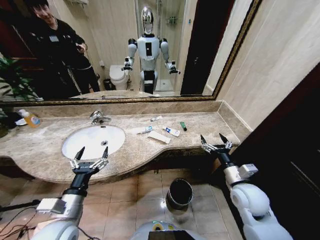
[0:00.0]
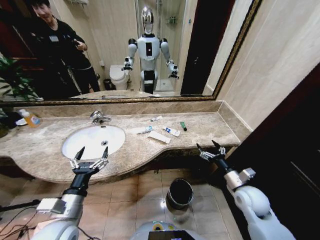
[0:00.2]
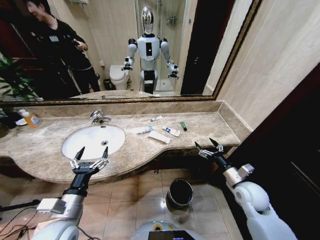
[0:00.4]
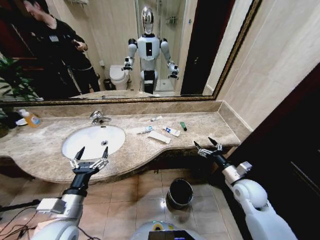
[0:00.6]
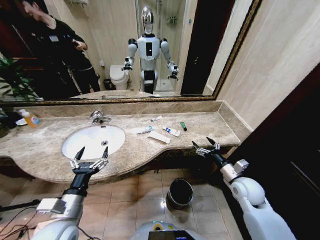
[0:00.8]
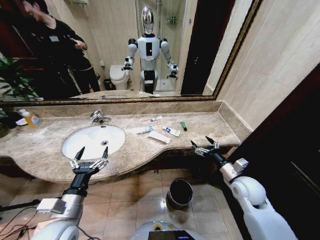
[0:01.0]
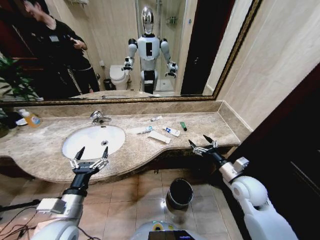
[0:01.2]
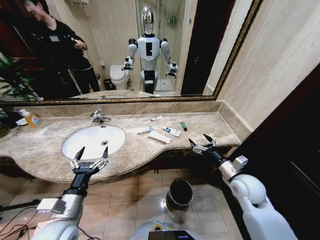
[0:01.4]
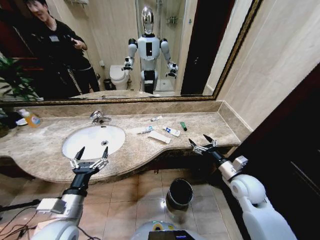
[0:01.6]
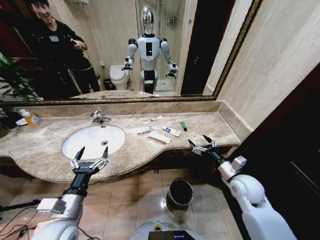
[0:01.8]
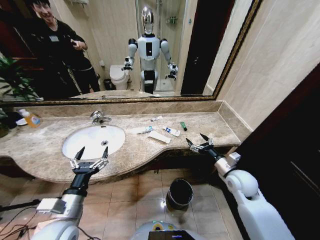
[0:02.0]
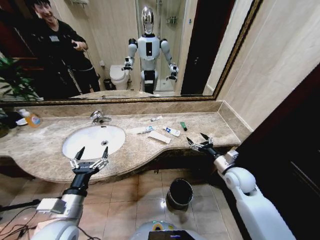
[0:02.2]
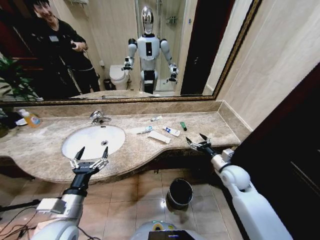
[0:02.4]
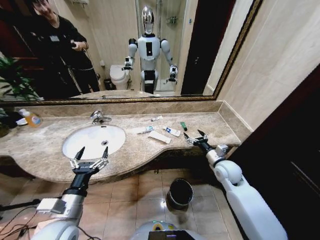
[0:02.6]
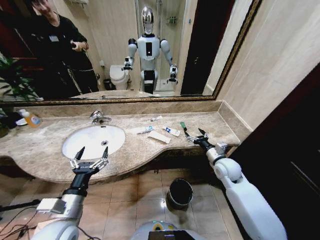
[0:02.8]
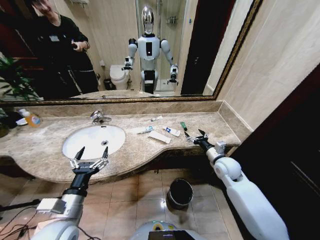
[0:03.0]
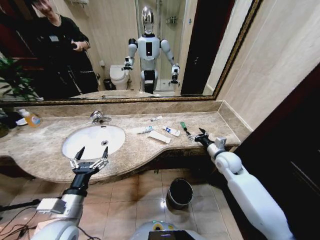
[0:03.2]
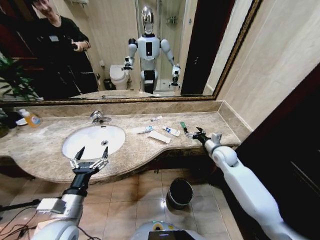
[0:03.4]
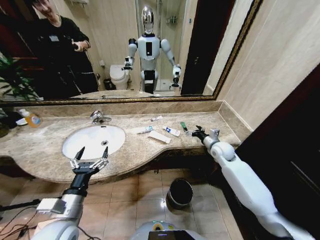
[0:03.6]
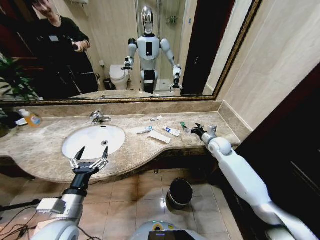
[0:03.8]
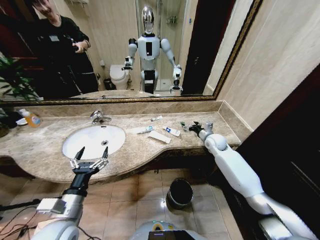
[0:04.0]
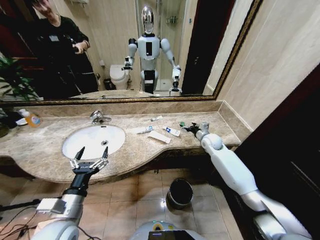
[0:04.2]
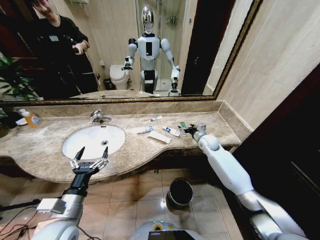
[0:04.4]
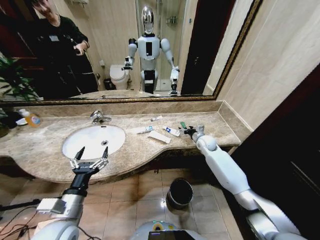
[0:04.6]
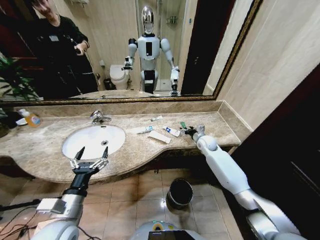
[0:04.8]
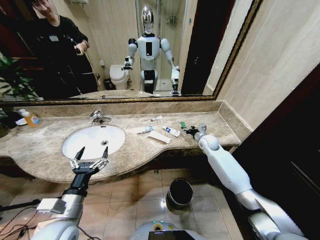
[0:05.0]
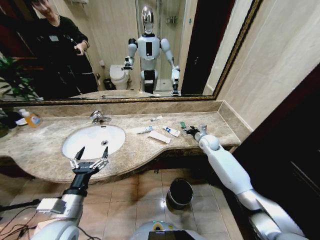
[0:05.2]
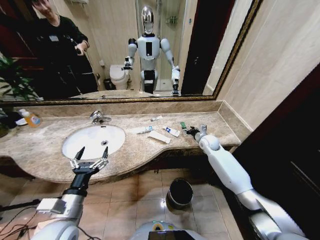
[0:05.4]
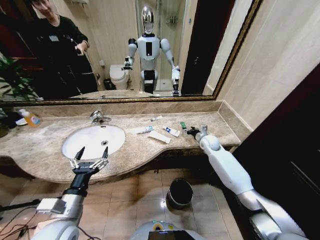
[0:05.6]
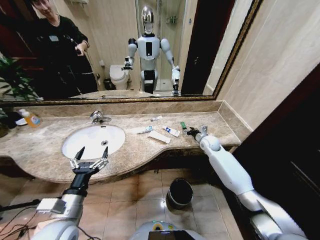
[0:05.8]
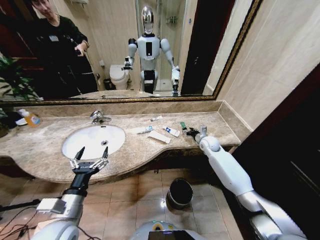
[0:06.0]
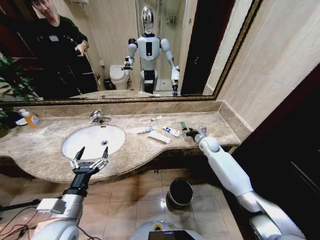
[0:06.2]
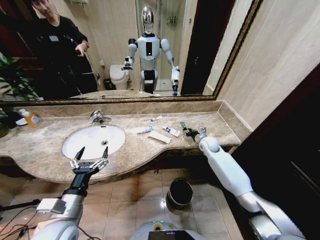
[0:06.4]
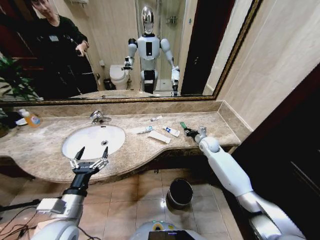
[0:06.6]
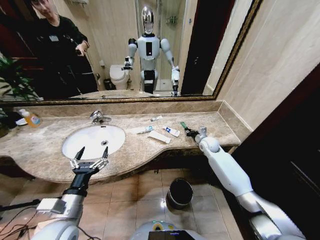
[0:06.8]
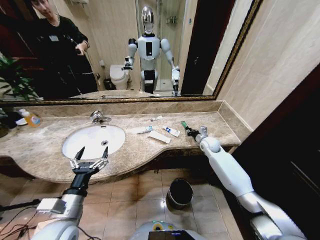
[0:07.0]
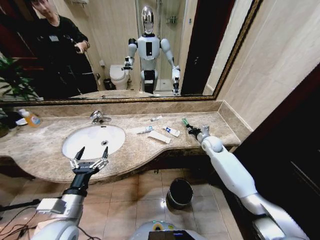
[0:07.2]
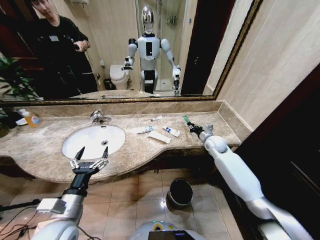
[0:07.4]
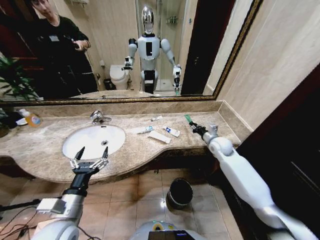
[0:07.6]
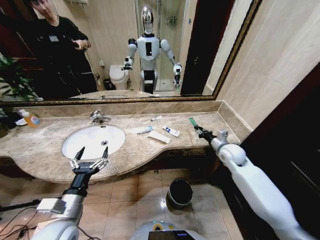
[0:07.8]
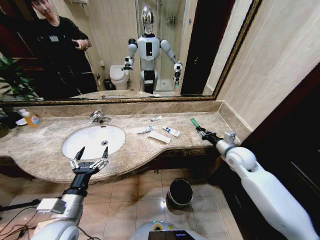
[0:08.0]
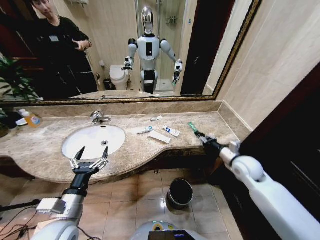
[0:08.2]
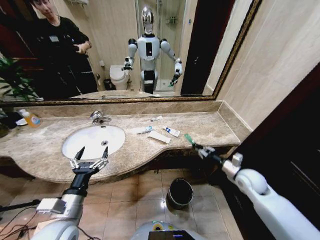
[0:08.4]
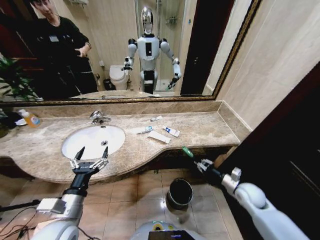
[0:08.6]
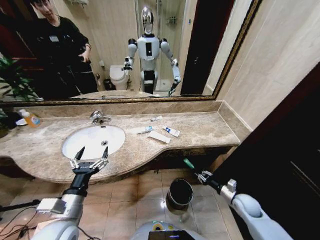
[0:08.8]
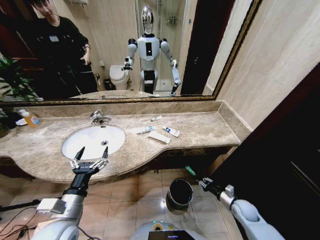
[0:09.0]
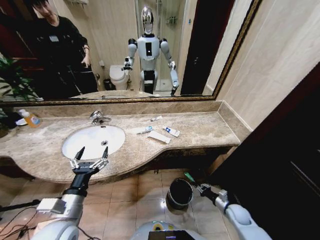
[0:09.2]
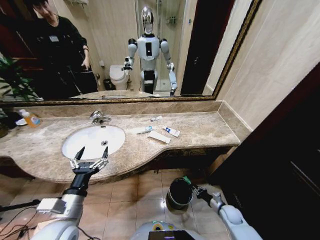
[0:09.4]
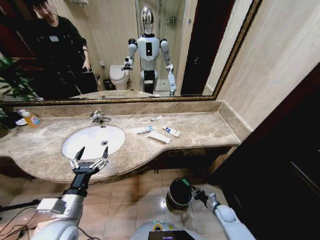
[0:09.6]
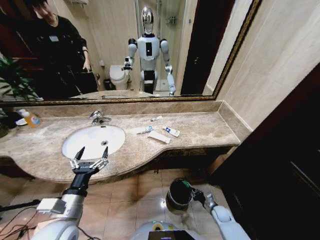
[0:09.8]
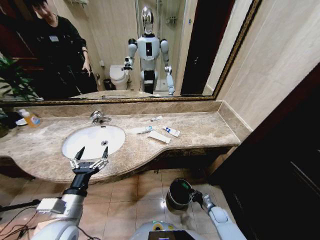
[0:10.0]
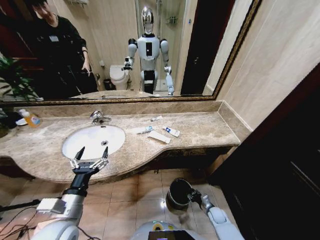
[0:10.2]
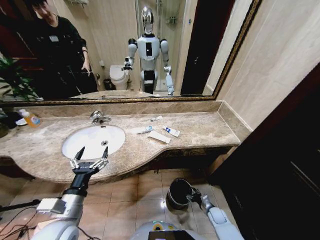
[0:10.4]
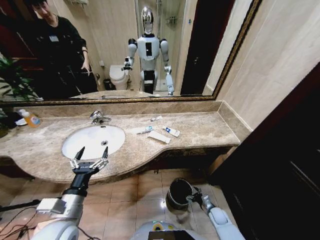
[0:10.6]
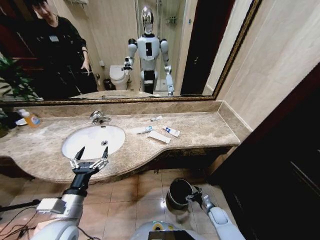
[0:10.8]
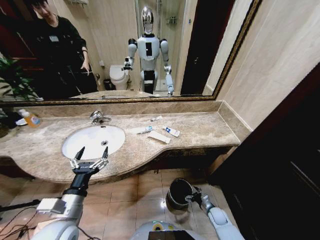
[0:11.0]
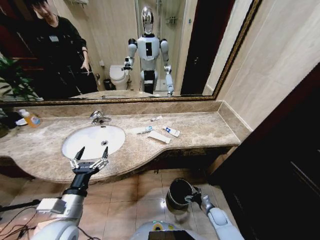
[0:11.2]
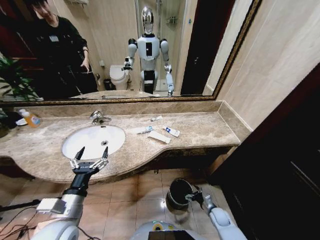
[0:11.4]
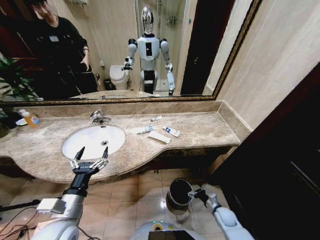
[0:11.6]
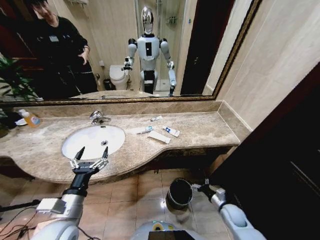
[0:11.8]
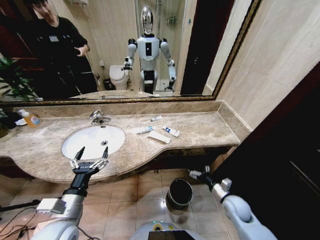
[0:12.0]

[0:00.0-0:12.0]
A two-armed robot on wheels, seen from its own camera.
Task of the whole recording: Pick up the trash from the sink and place it in the trash bin.
0:01.6 to 0:03.0: The right gripper heads forward, covering about 10 cm.
0:03.0 to 0:04.4: The right gripper shifts approximately 15 cm forward.
0:04.4 to 0:06.0: The right gripper closes up.
0:06.0 to 0:07.6: The right gripper is displaced backward by some 5 cm, and closes.
0:07.6 to 0:09.0: The right gripper is displaced downward, backward and to the right by approximately 35 cm.
0:09.0 to 0:10.4: The right gripper heads downward and to the left, covering roughly 15 cm, and opens.
0:10.4 to 0:12.0: The right gripper travels upward by some 20 cm, and opens up.

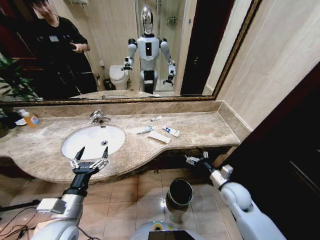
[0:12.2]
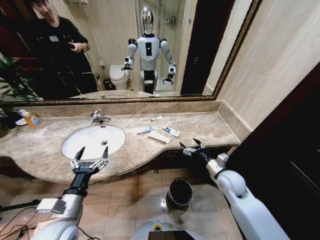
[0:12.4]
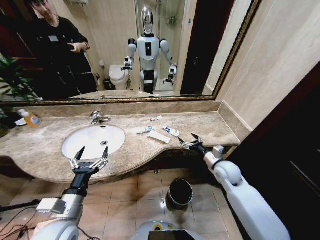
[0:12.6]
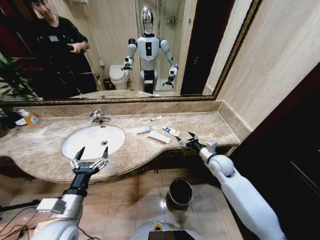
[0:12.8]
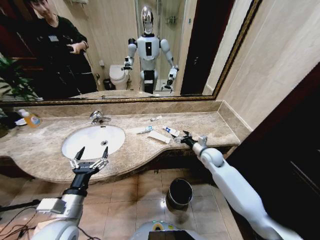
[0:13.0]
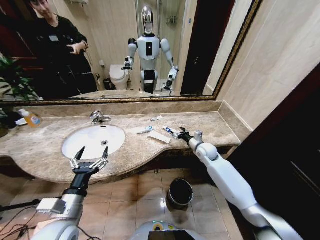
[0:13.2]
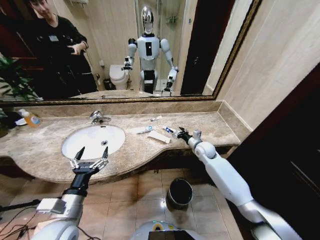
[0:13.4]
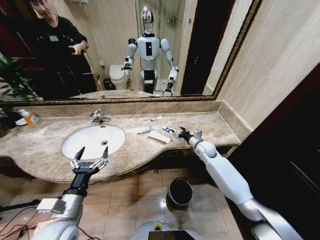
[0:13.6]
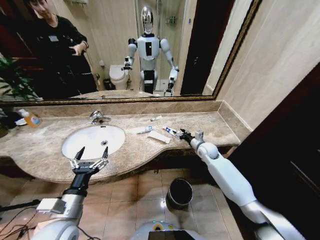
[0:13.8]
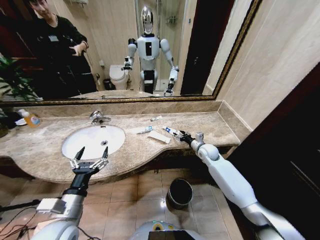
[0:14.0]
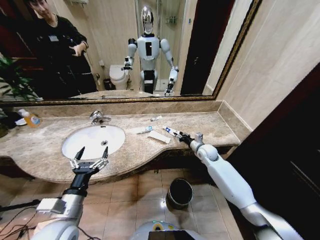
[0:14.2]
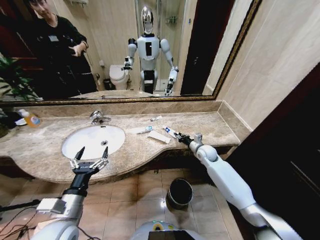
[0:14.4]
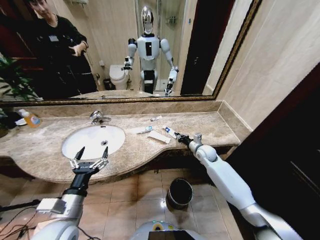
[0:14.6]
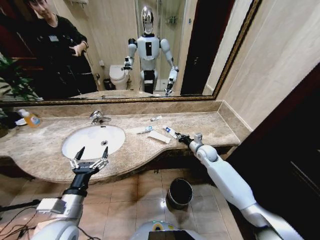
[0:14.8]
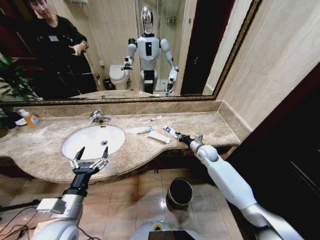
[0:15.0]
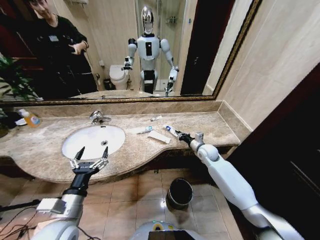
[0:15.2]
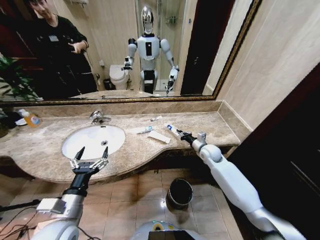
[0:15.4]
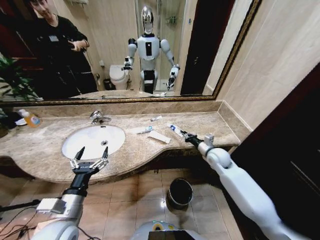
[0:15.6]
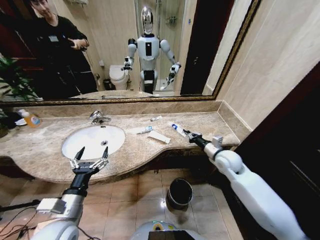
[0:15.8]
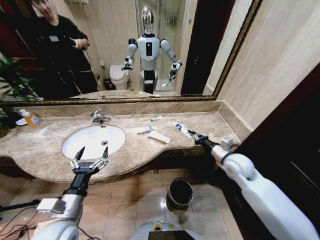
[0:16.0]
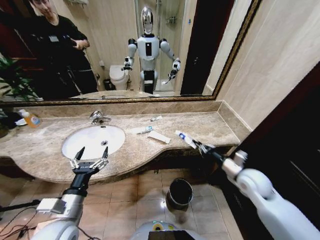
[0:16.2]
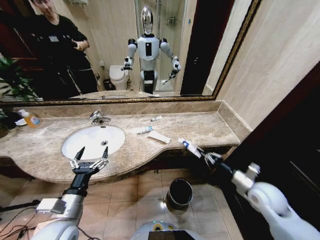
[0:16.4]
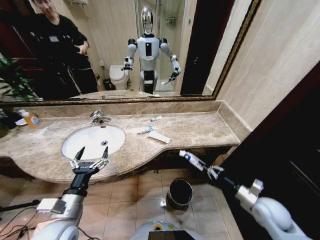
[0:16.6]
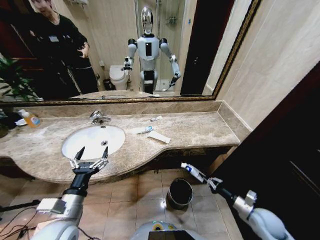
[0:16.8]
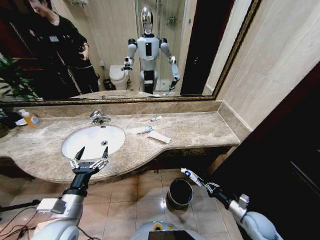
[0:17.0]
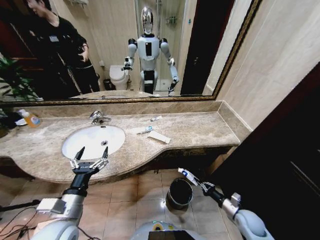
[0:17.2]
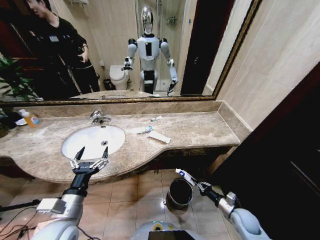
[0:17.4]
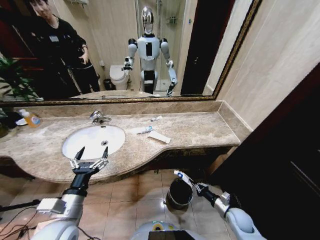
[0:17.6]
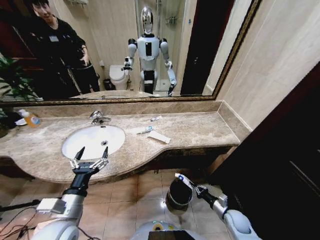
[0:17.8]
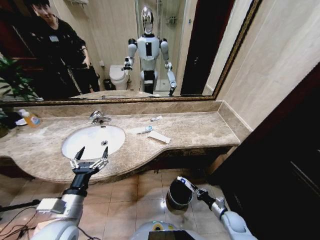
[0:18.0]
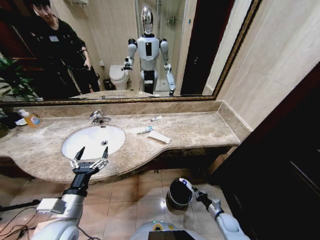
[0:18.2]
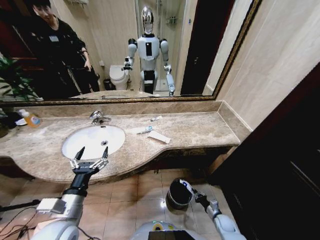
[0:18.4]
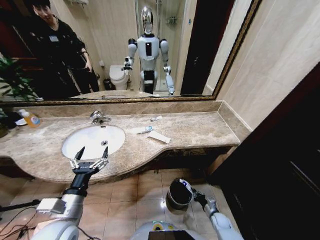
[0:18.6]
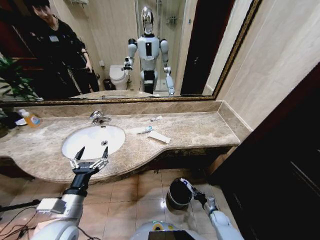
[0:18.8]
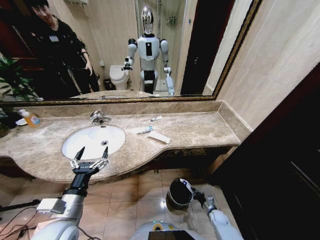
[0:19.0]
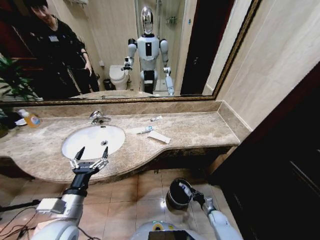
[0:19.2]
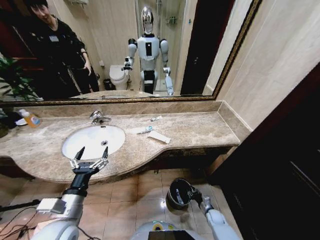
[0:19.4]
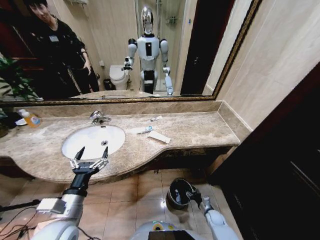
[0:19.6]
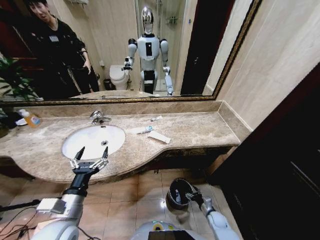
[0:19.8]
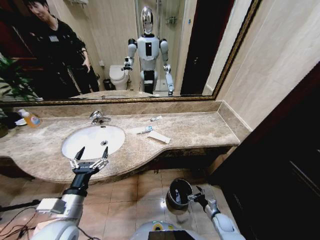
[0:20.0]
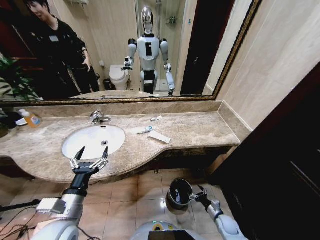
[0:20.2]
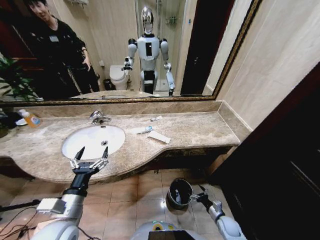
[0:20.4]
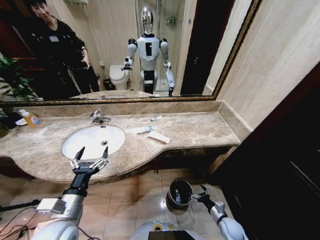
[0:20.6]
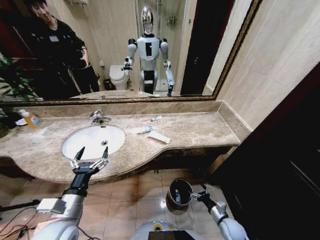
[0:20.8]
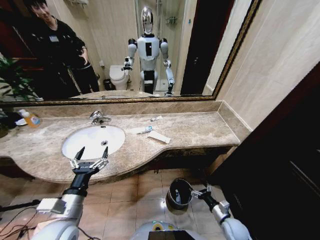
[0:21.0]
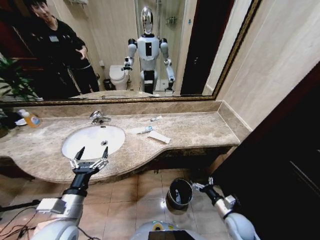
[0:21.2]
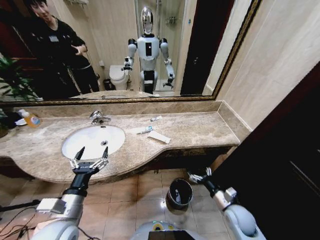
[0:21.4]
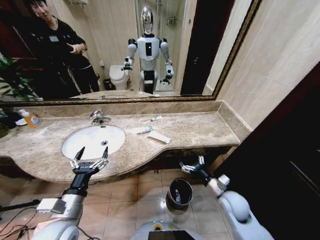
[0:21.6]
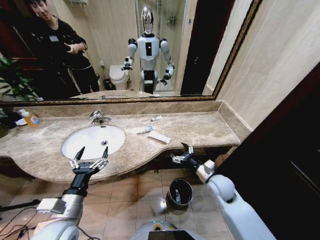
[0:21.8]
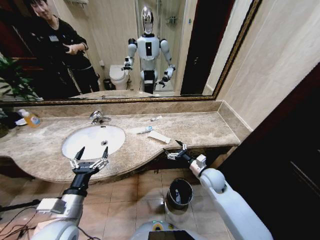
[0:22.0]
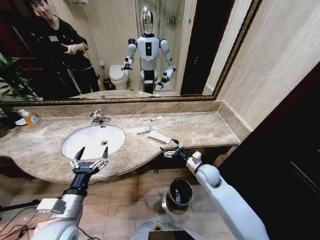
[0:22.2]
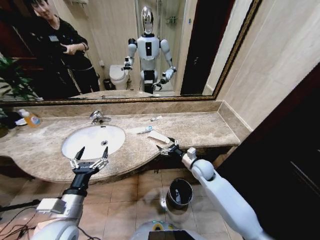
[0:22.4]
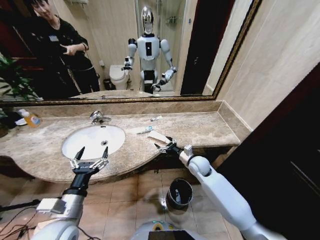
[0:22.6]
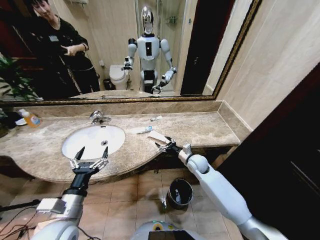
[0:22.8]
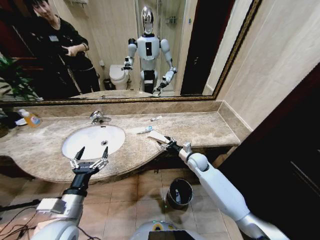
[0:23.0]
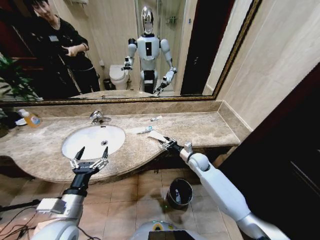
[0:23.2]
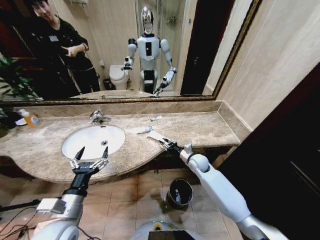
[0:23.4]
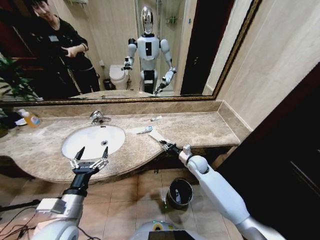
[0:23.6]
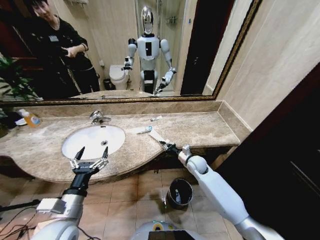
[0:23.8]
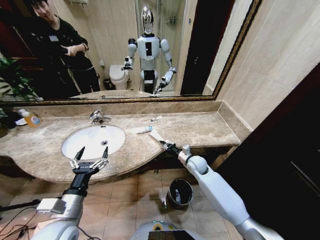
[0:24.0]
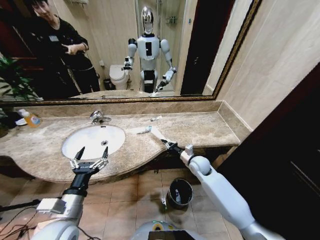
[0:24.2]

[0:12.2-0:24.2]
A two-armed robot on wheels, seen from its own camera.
Task of the whole recording: Pick up the trash from the sink and place it in the trash bin.
0:12.2 to 0:13.8: The right gripper travels forward by about 20 cm.
0:13.8 to 0:15.2: The right gripper closes up.
0:15.2 to 0:16.6: The right gripper shifts about 30 cm backward and to the right.
0:16.6 to 0:18.2: The right gripper heads downward, covering roughly 25 cm.
0:18.2 to 0:19.8: The right gripper opens up.
0:19.8 to 0:21.2: The right gripper heads upward, covering approximately 15 cm.
0:21.2 to 0:22.6: The right gripper moves forward, upward and to the left, roughly 30 cm.
0:22.6 to 0:24.2: The right gripper closes its fingers.
